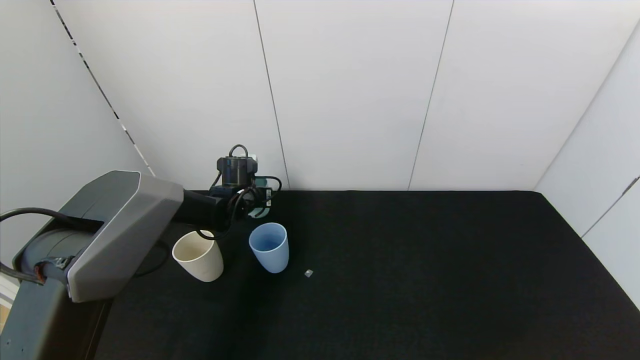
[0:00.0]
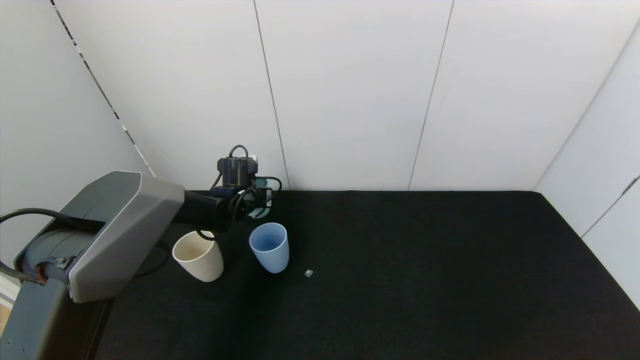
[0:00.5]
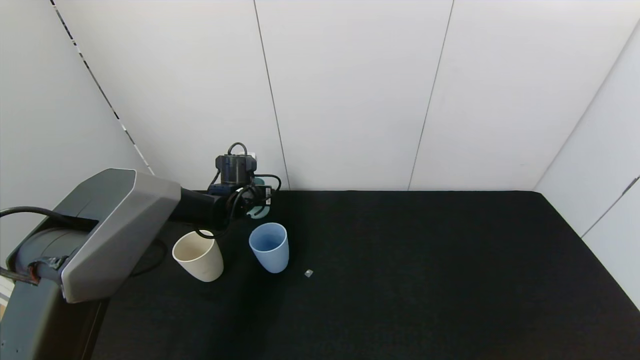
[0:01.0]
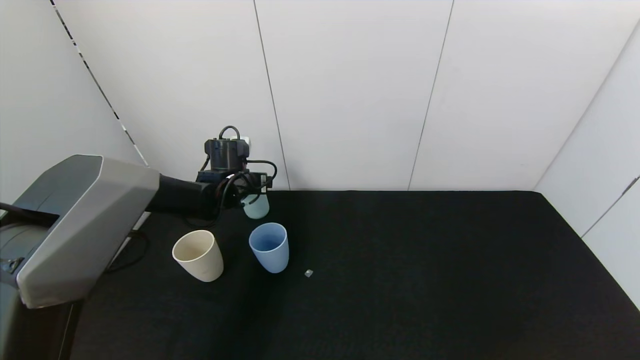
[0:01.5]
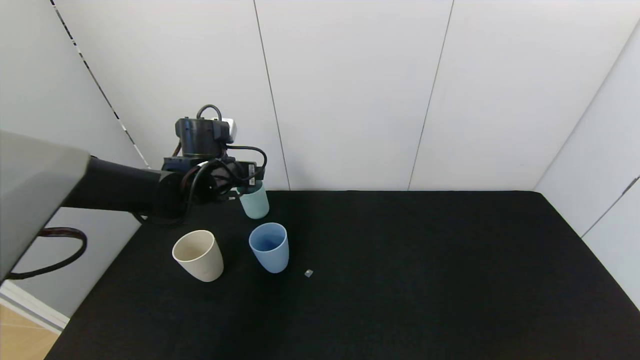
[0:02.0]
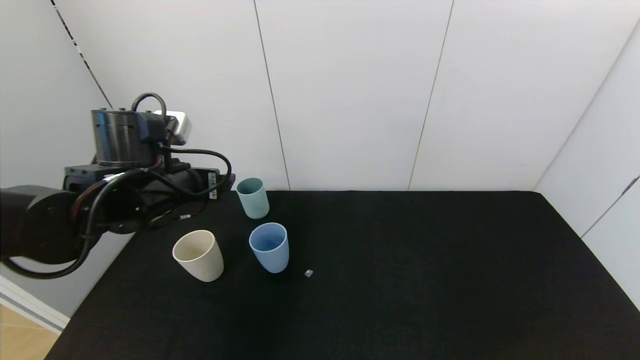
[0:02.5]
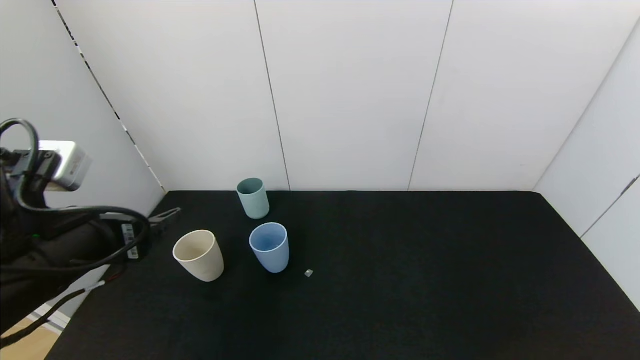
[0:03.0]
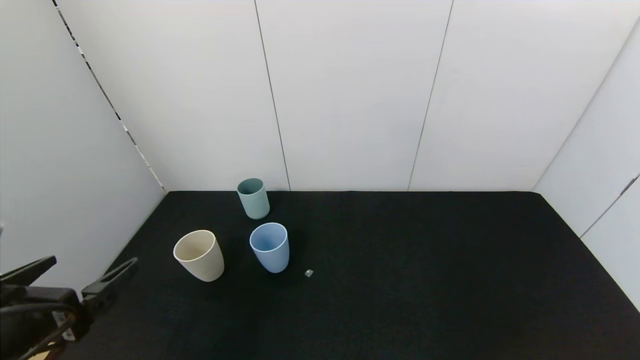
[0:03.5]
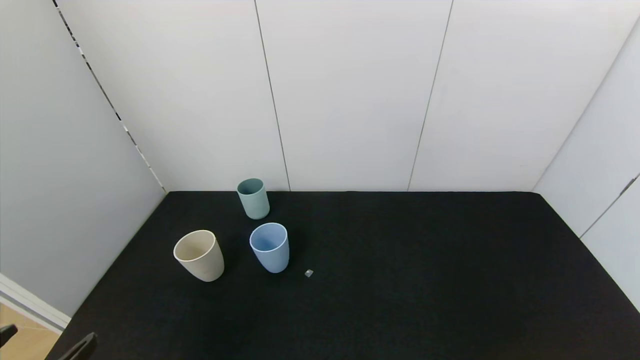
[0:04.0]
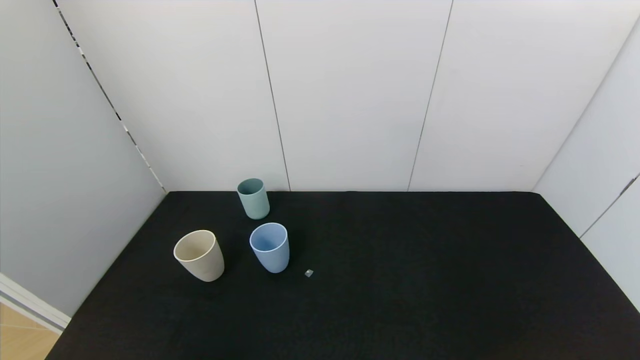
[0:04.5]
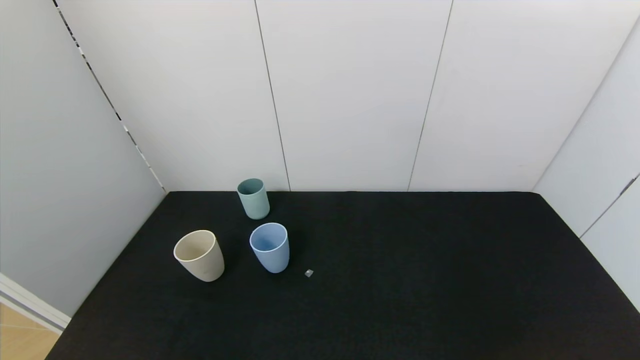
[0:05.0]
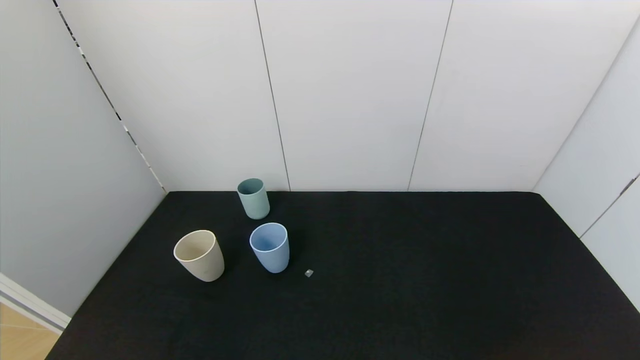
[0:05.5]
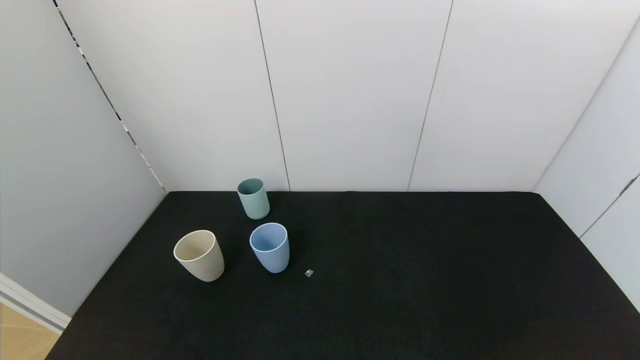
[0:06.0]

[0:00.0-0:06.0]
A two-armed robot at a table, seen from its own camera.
Task of the whole recording: use the gripper to pour the water into the other two cups on black table.
Step, 0:00.0 to 0:02.5: Place the green cup with the left gripper.
0:00.0 to 0:02.0: The left gripper heads upward and backward, covering approximately 15 cm, and opens.
0:02.0 to 0:04.0: The left gripper is displaced backward by roughly 40 cm.
